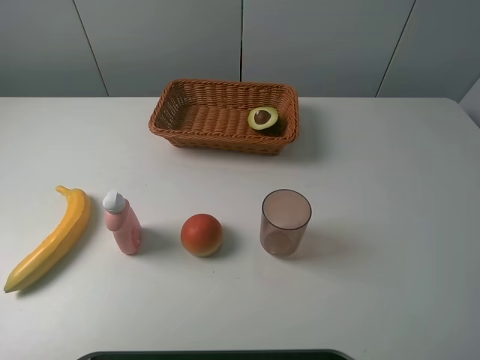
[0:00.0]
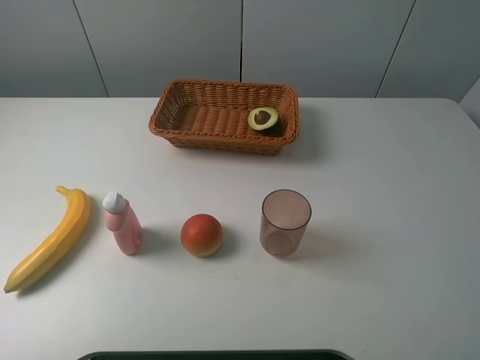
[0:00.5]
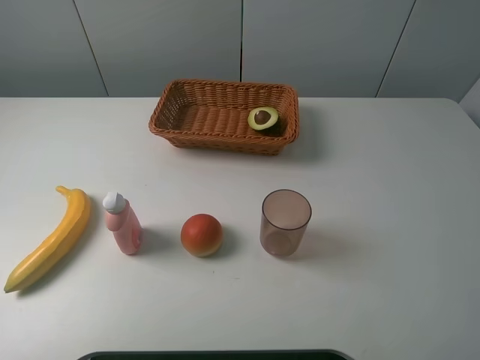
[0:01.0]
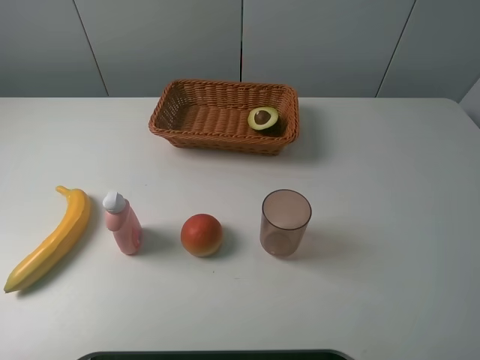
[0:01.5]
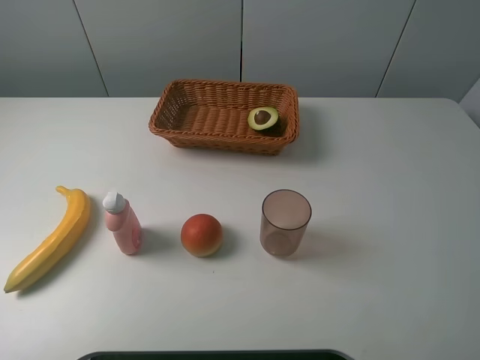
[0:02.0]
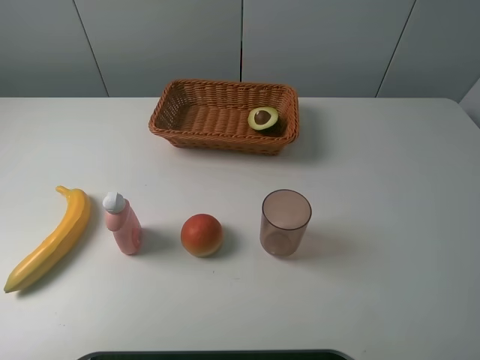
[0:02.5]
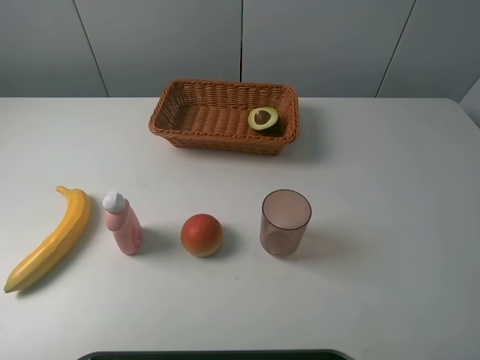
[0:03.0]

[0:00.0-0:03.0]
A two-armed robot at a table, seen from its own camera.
Task of the whole recording: randomly pick up an item from the table and put it in the basket.
0:01.5 to 0:03.0: Neither gripper changes place.

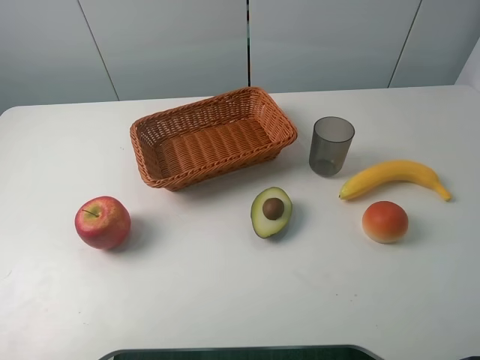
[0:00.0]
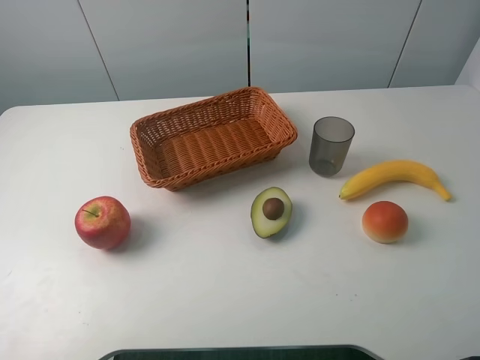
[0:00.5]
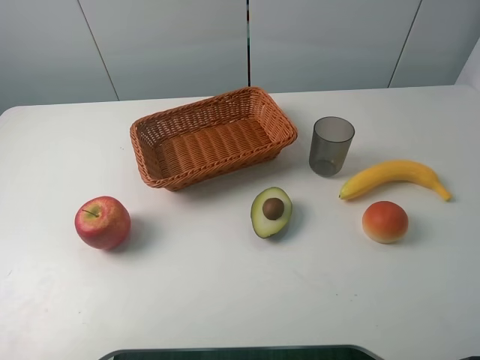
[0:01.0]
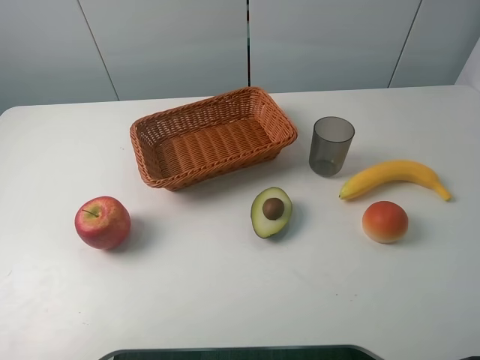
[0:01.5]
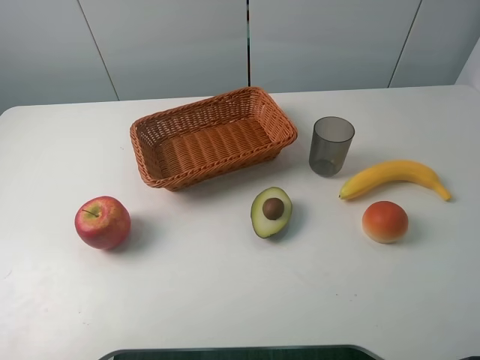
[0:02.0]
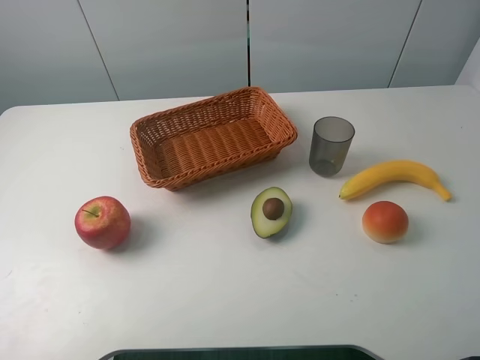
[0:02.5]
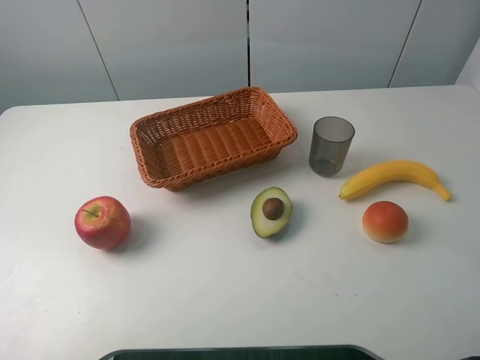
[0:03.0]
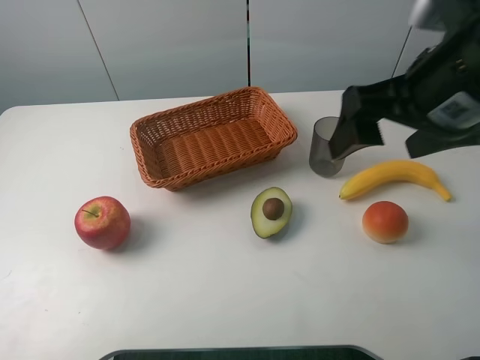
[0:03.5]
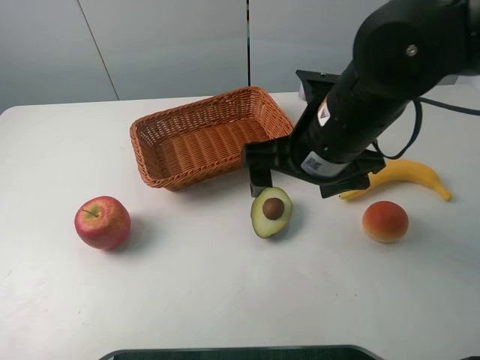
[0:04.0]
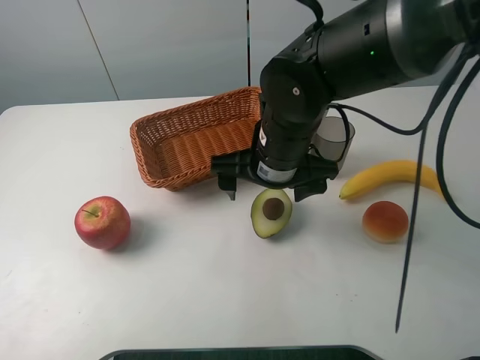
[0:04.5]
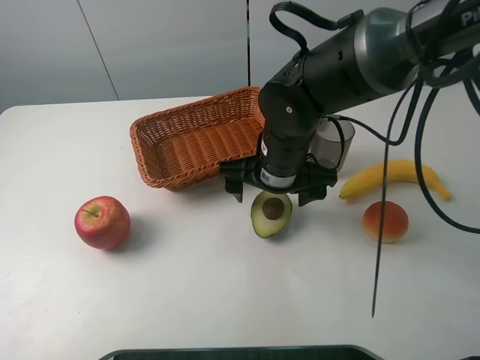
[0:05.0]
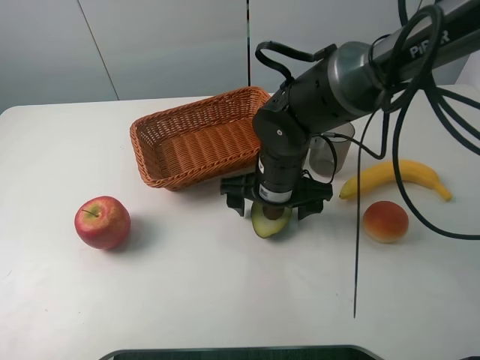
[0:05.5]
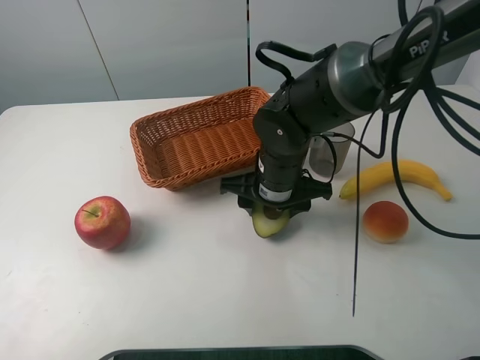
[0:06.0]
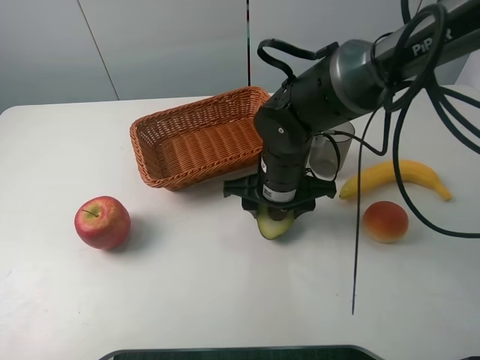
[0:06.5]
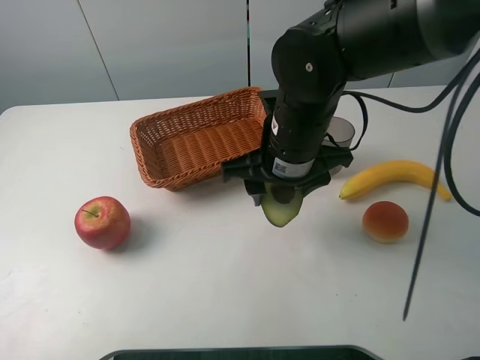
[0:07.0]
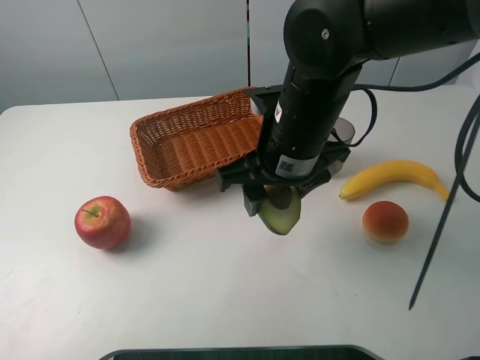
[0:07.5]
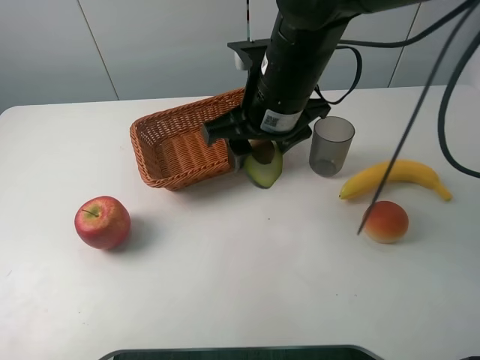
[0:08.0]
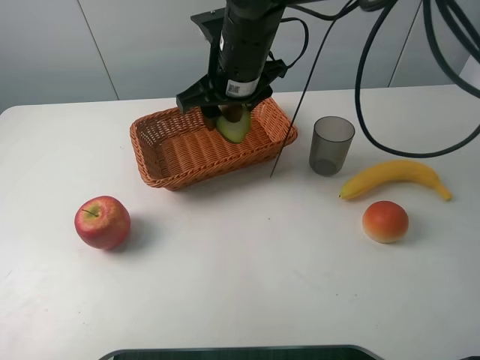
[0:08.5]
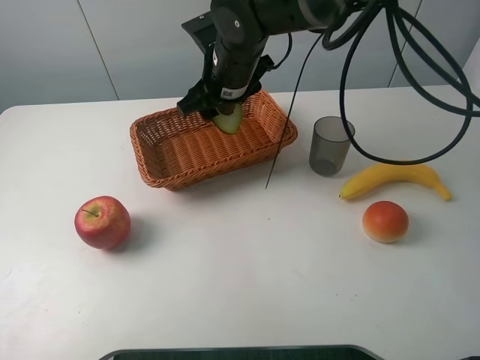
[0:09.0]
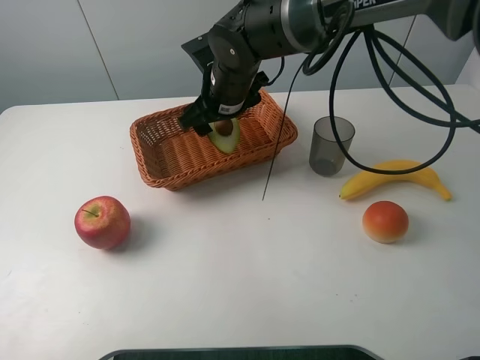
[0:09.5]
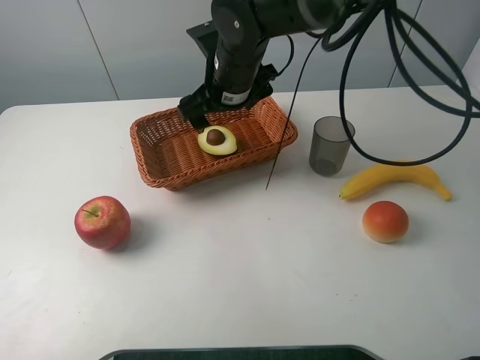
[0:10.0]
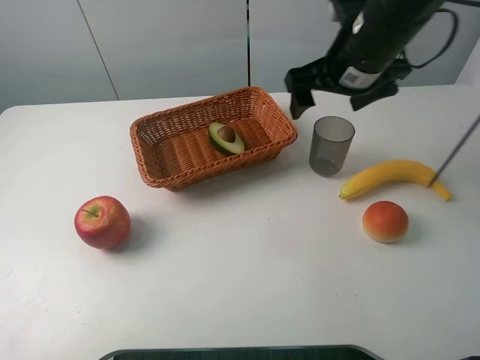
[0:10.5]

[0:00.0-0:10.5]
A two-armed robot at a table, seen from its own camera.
Task of the whole recording: randomly pick up an item from the table and put it in the basket.
Step, 0:00.0 to 0:05.5: Grasp the avocado with the right gripper.
Step, 0:06.0 to 0:10.0: Place the avocado into the basket with the right gripper.
0:02.0 to 0:04.0: The right gripper heads forward, to the left and downward, covering some 30 cm.
0:04.0 to 0:06.5: The right gripper shifts approximately 10 cm downward, and closes.
0:06.5 to 0:08.5: The right gripper is displaced upward, forward and to the left by roughly 15 cm.
0:08.5 to 0:10.5: The right gripper travels to the right by approximately 15 cm, and opens.

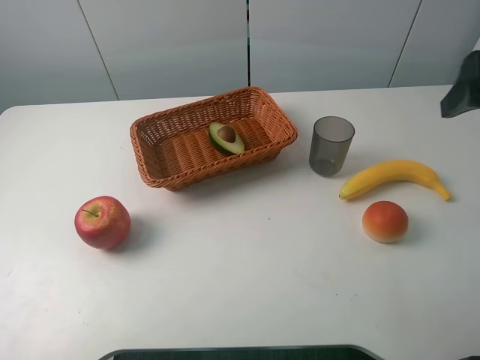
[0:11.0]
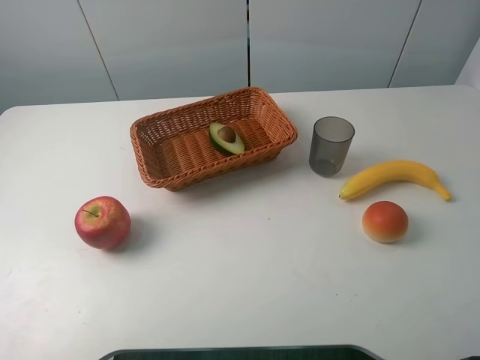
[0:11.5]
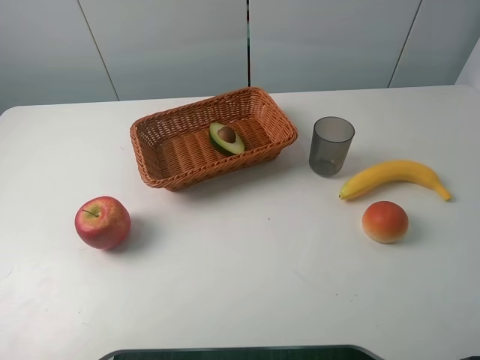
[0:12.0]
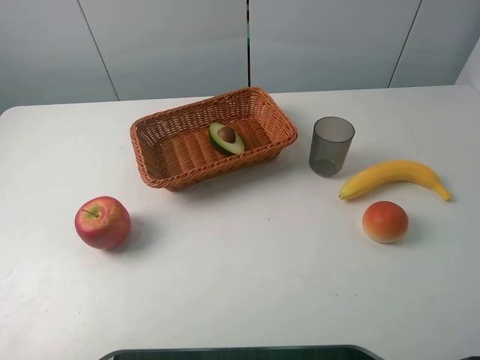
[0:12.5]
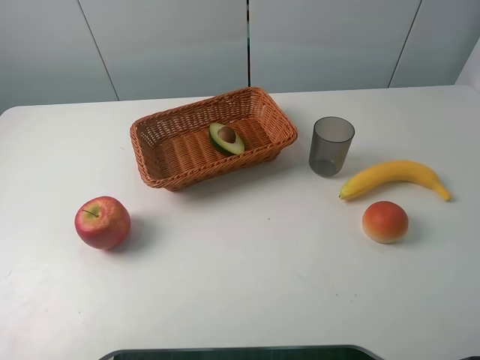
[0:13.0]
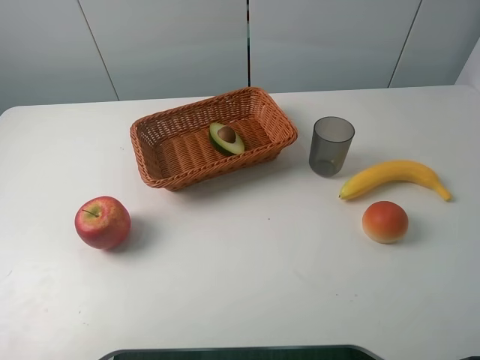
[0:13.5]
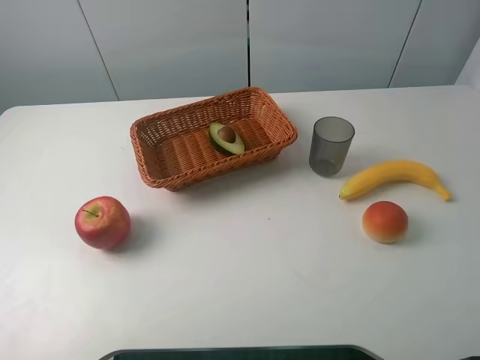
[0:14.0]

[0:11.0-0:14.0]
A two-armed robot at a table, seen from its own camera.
Task of the whole recording: randomly pick up an item from the table and put it in the basket.
0:11.0 to 0:12.5: The right gripper goes roughly 20 cm backward.
0:12.5 to 0:14.0: The two grippers keep their place.
